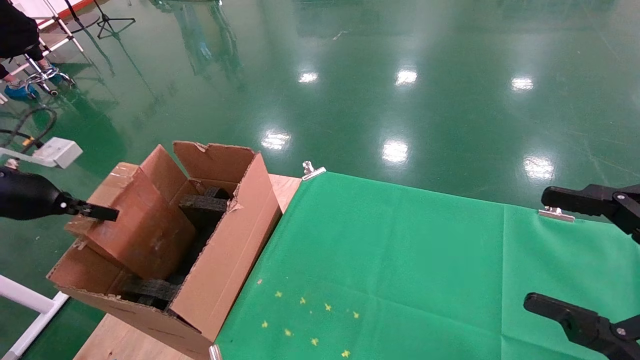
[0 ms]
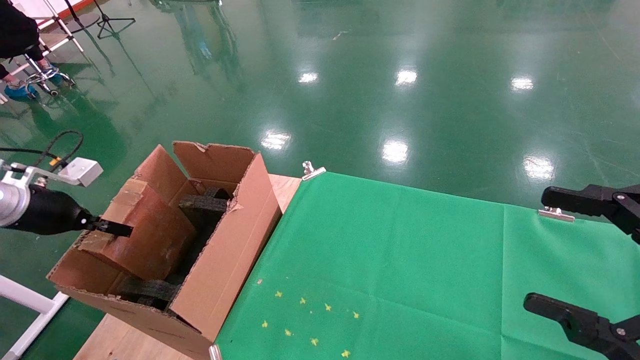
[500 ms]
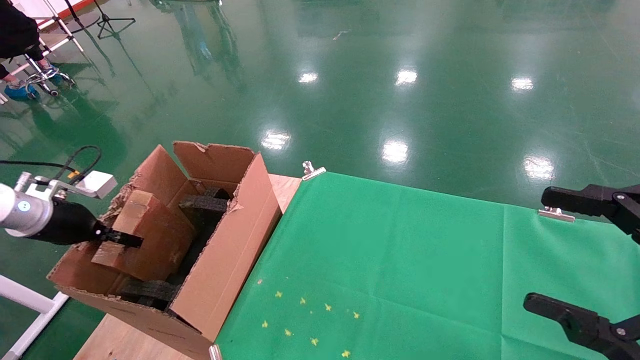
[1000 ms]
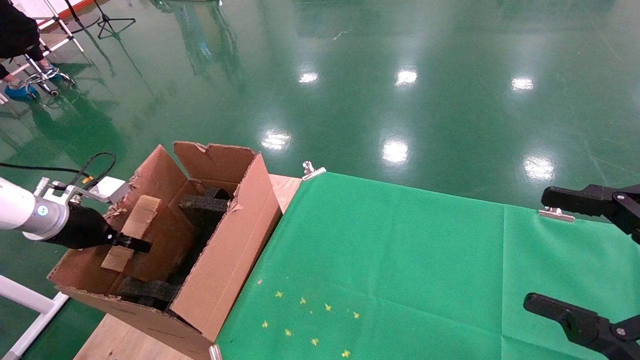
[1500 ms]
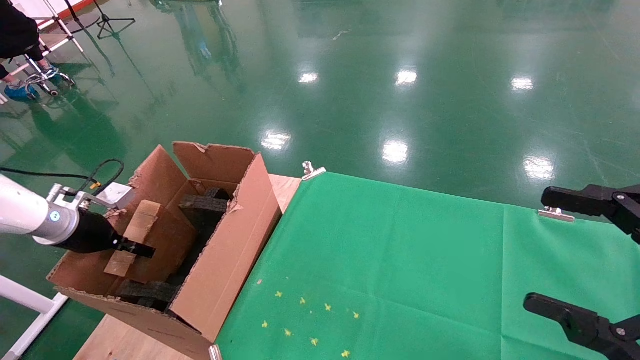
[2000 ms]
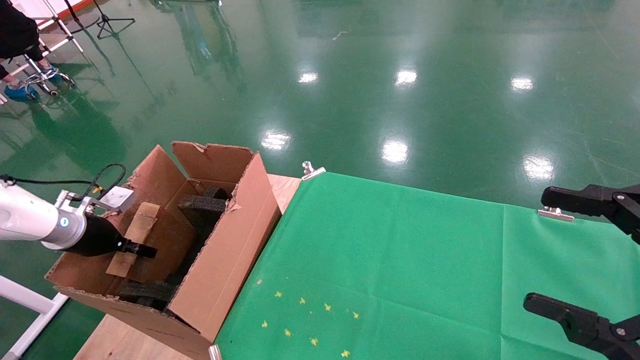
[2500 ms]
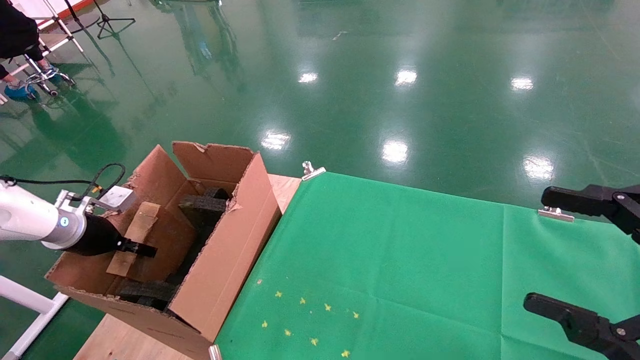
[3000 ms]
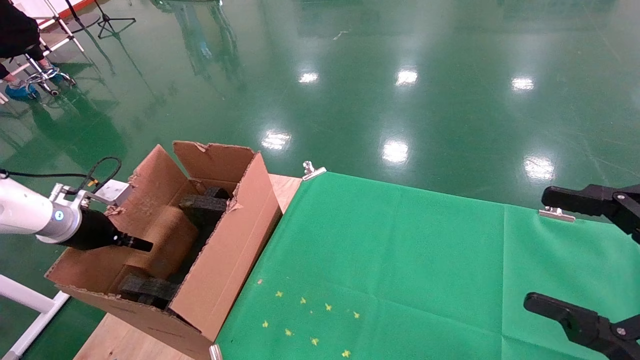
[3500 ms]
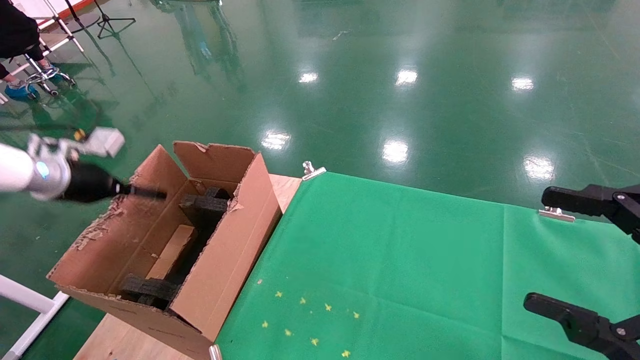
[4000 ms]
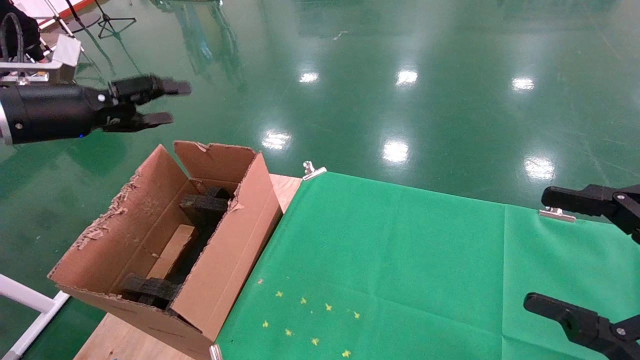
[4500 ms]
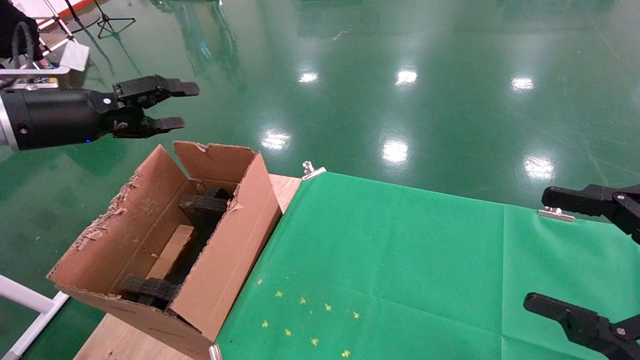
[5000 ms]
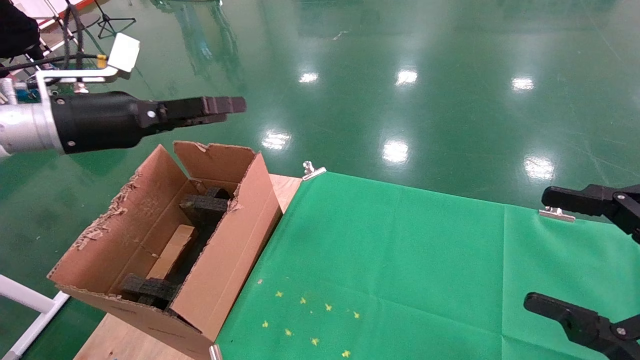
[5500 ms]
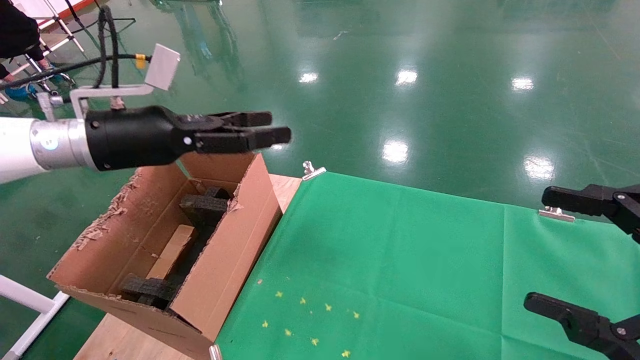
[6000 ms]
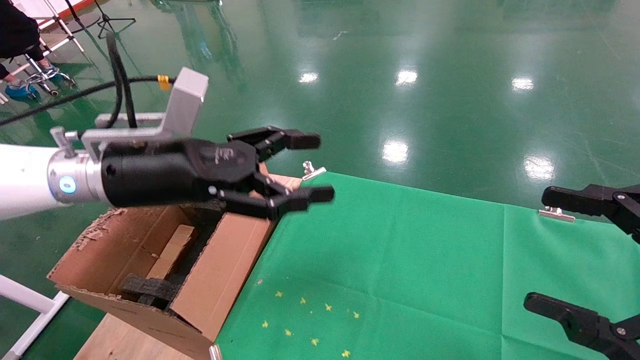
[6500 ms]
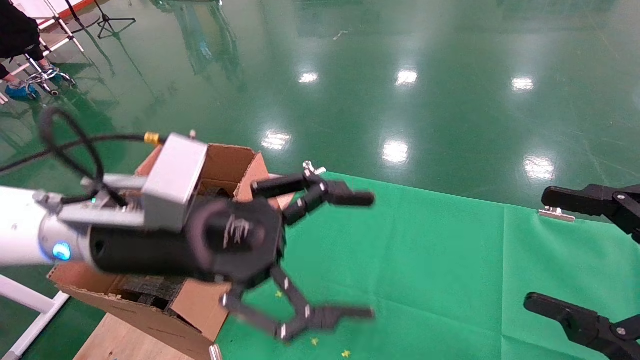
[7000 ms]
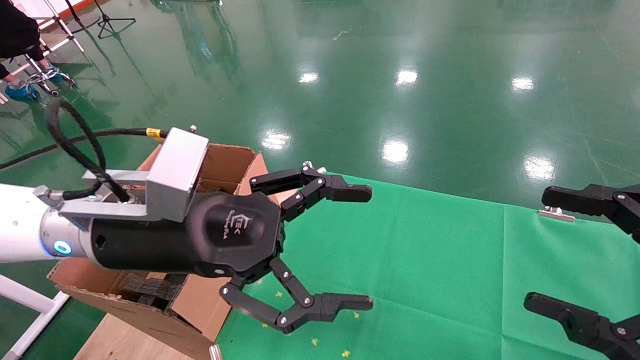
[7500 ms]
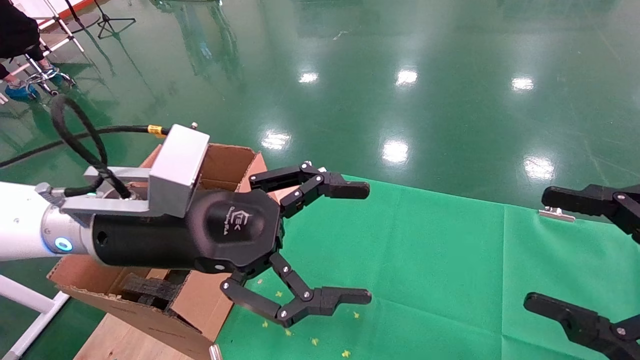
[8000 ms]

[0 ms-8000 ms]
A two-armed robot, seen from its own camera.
Task of the whole recording: using a robotic arm to pick up a cardboard box and palace it the carton.
Step, 0 ms to 4000 ms: Place the mouse and the power cord paper box into the container.
0 ms to 2000 ms: The left gripper travels downward and forward by approximately 10 cm.
2000 ms to 4000 ms: The left gripper travels upward by approximately 10 cm, and opens up.
4000 ms to 6000 ms: The left gripper shifts some 20 cm to the right.
6000 ms to 8000 ms: The left gripper heads to the right and backward, covering about 15 cm.
